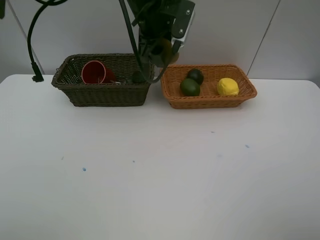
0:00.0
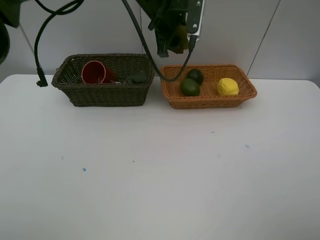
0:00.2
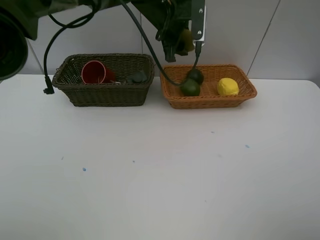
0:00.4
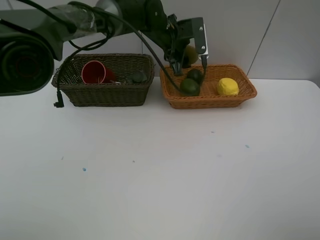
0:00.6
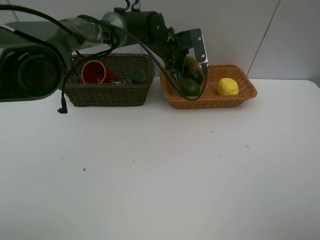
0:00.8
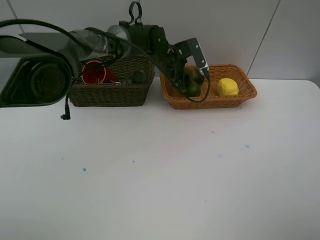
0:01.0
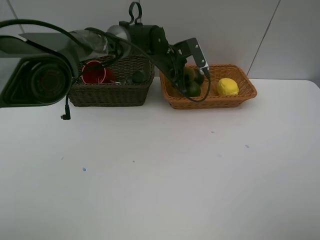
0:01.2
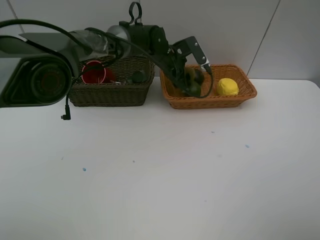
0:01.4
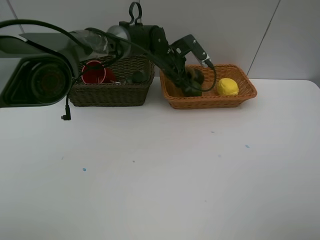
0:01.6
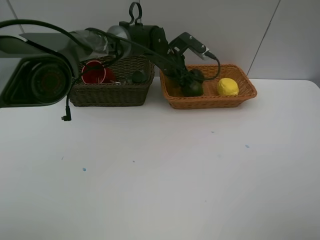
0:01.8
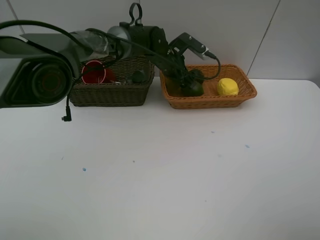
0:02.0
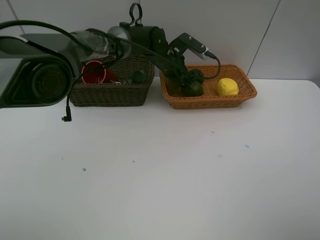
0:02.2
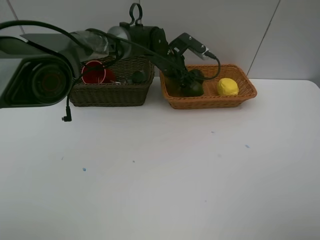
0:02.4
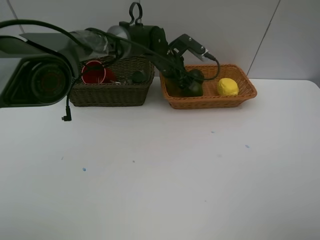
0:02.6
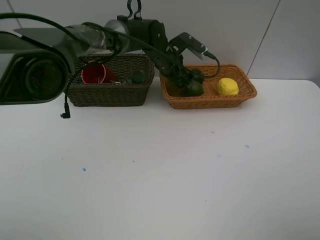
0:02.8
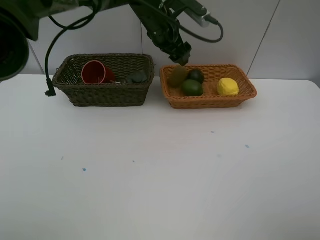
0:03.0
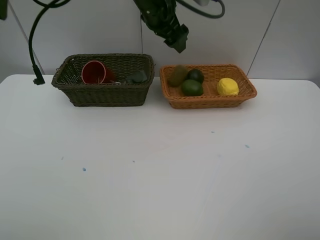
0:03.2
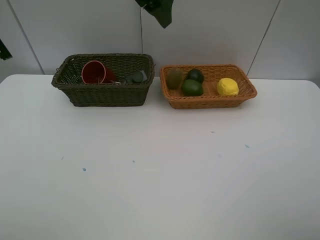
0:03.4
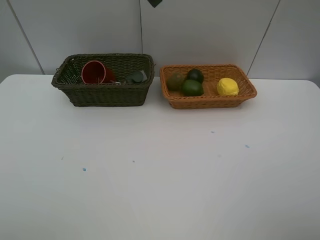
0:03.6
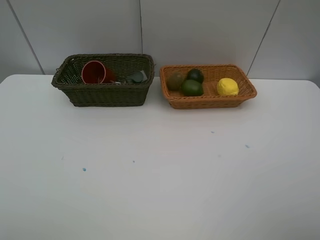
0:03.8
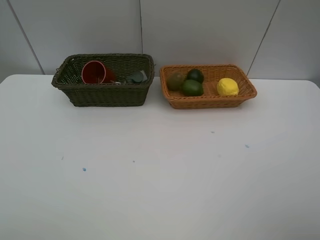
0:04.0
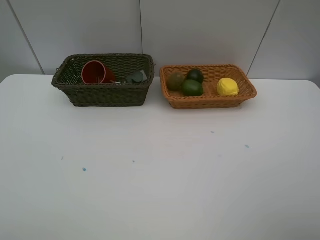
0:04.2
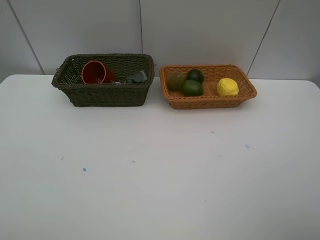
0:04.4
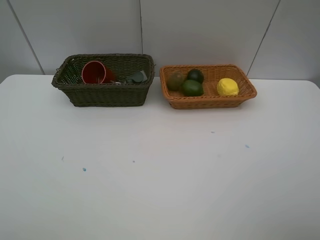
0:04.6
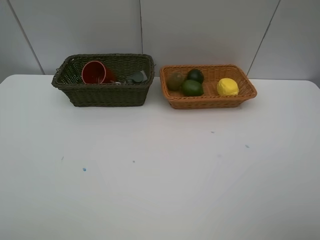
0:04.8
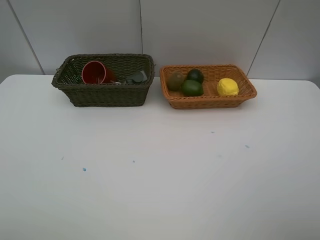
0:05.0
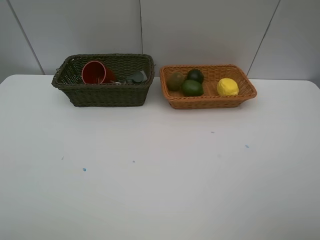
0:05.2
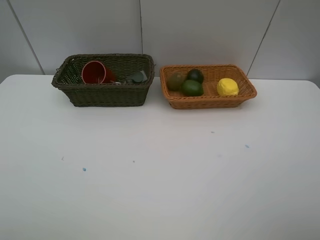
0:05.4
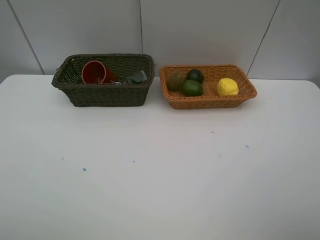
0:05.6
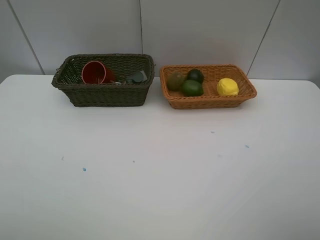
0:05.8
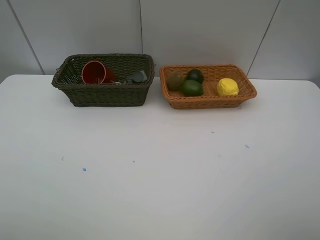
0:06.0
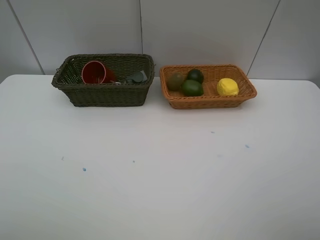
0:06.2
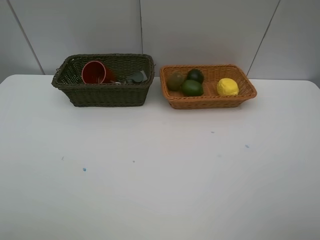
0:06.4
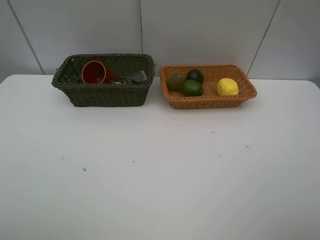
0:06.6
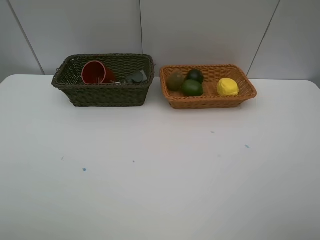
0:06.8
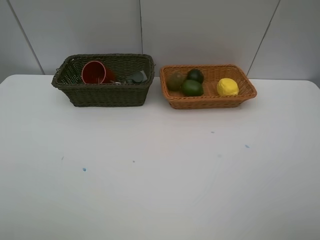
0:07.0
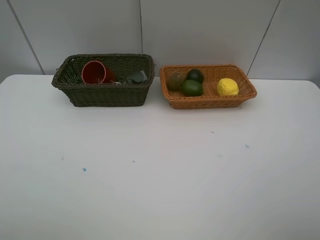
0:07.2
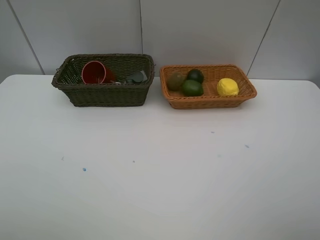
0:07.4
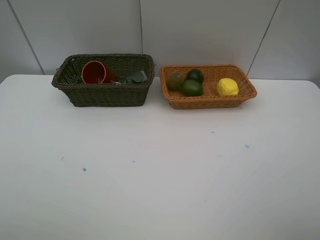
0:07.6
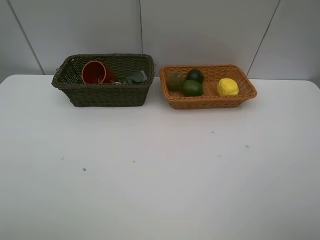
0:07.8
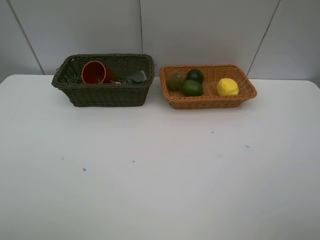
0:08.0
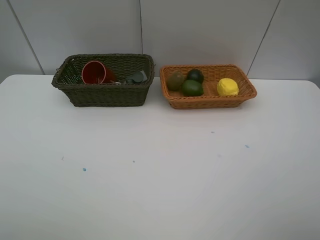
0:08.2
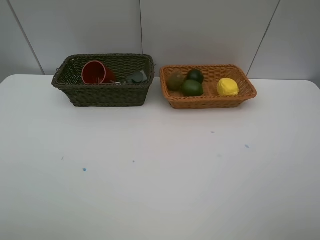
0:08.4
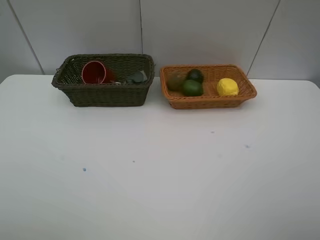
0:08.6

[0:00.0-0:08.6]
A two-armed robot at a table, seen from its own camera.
Task of the whole recording: Place multiple objects separately in different baskets.
Step, 0:00.0 to 0:03.0: Place the kiwi in the light basket with left gripper.
0:00.0 to 0:01.4: The left gripper goes roughly 15 cm downward.
0:01.4 to 0:02.8: The grippers make only small movements.
0:02.8 to 0:04.4: The left gripper goes about 50 cm upward, backward and to the left.
0:07.2 to 0:08.6: Neither gripper changes place.

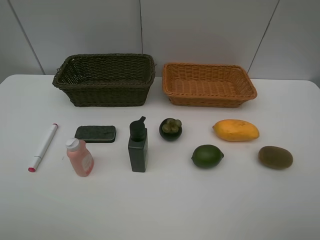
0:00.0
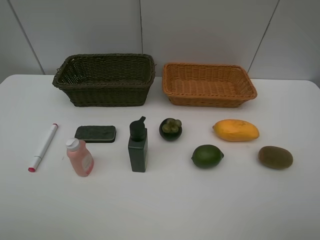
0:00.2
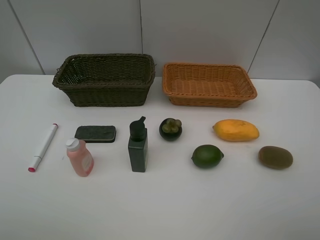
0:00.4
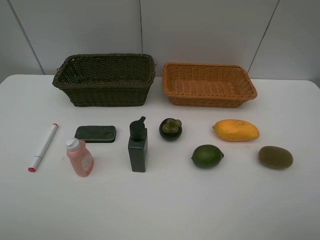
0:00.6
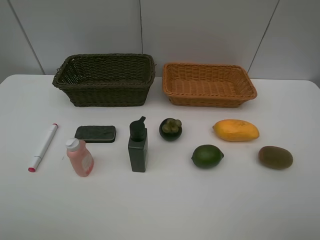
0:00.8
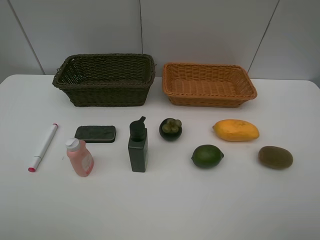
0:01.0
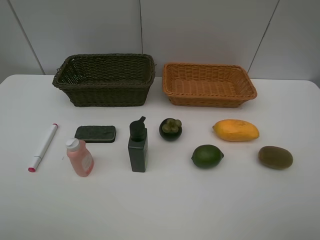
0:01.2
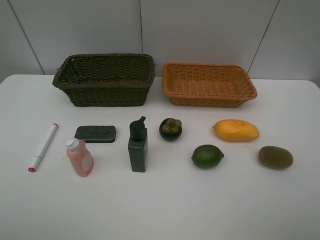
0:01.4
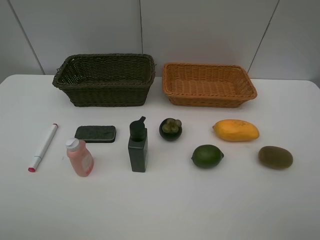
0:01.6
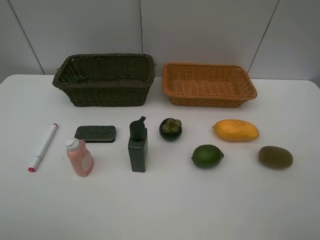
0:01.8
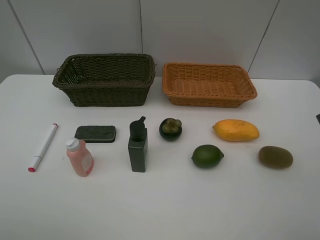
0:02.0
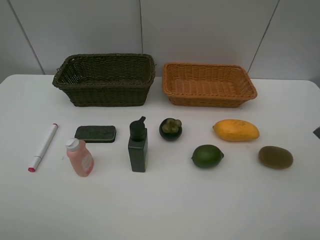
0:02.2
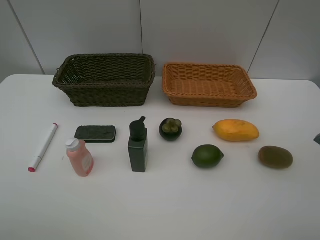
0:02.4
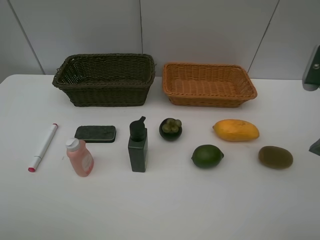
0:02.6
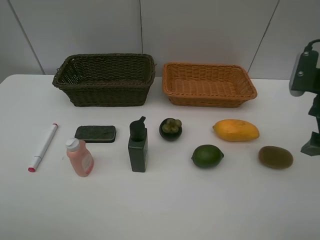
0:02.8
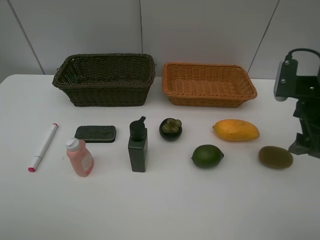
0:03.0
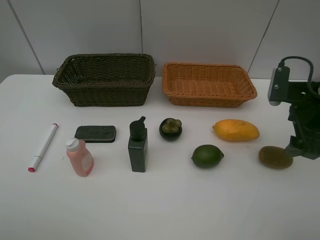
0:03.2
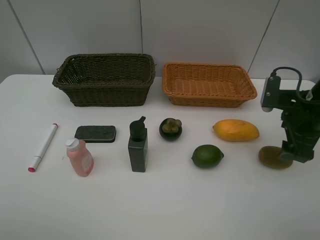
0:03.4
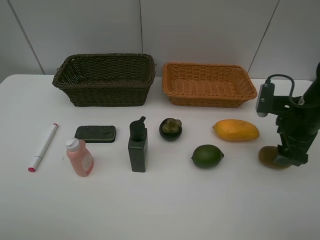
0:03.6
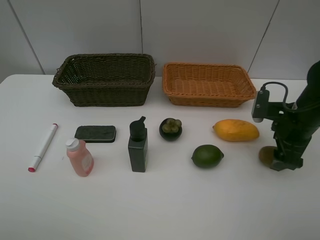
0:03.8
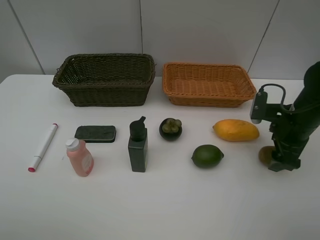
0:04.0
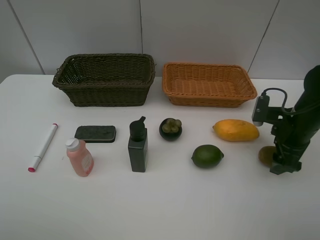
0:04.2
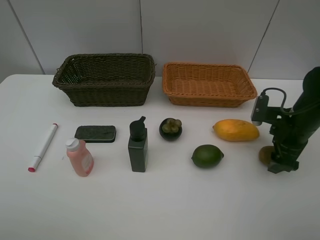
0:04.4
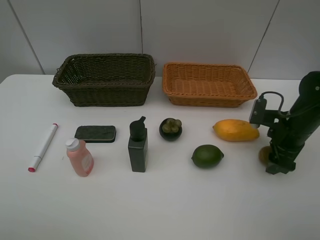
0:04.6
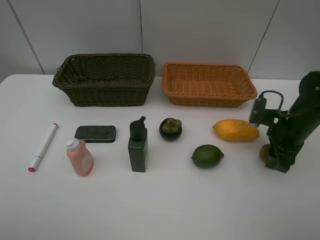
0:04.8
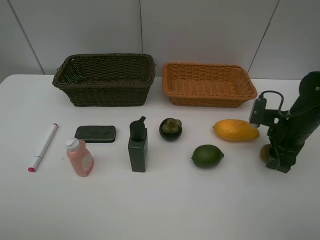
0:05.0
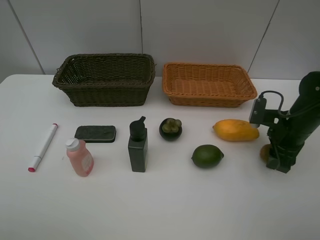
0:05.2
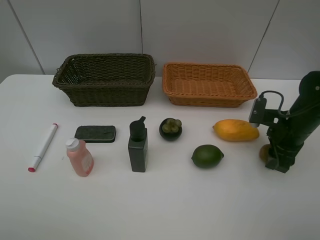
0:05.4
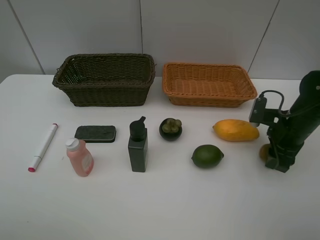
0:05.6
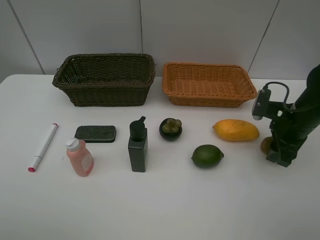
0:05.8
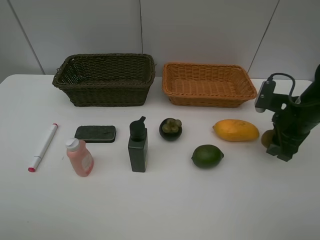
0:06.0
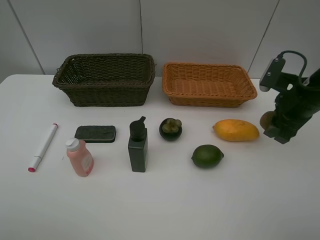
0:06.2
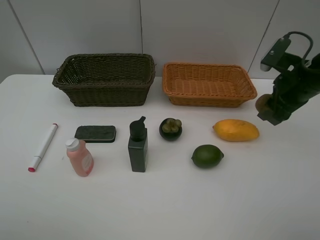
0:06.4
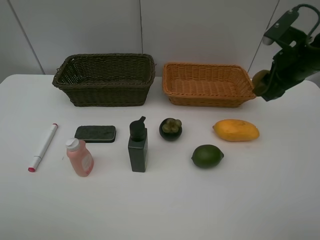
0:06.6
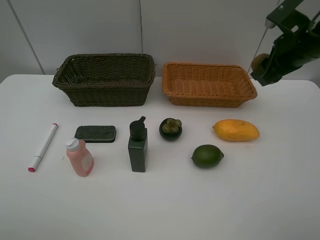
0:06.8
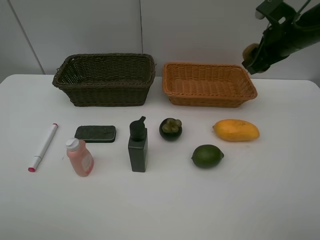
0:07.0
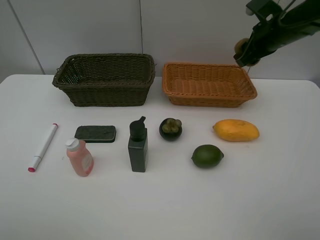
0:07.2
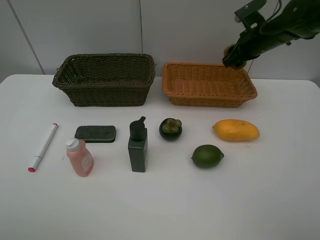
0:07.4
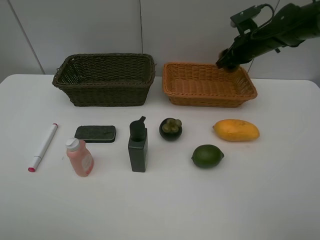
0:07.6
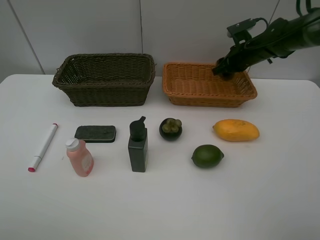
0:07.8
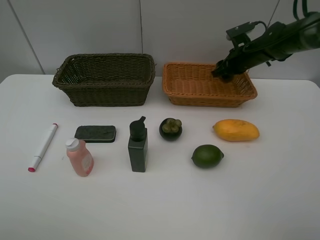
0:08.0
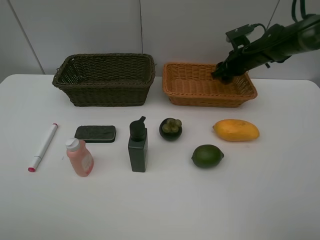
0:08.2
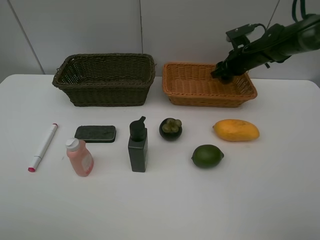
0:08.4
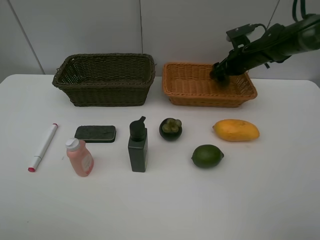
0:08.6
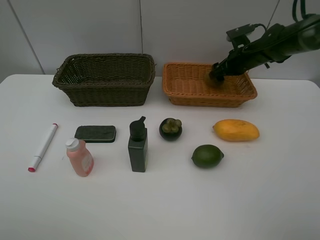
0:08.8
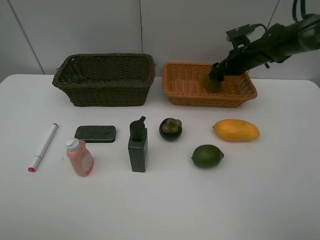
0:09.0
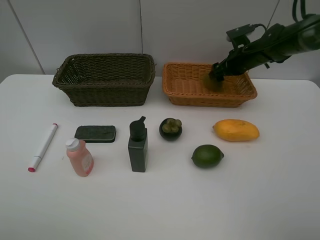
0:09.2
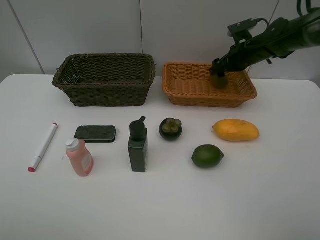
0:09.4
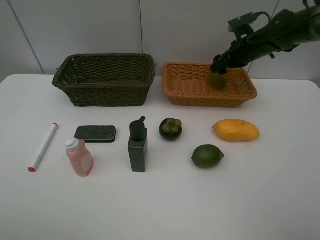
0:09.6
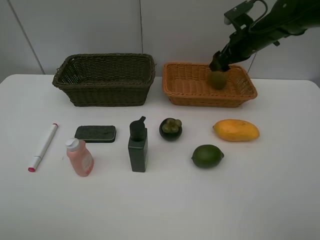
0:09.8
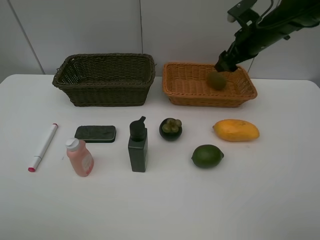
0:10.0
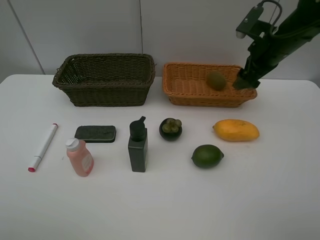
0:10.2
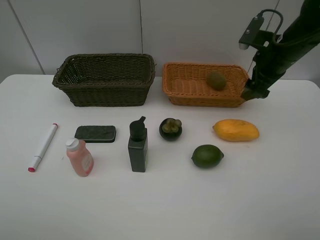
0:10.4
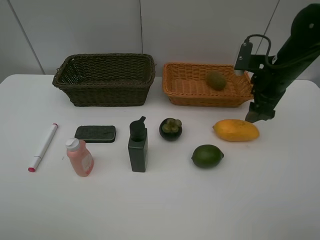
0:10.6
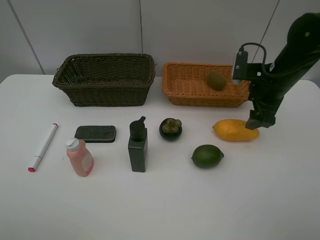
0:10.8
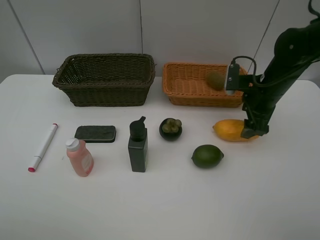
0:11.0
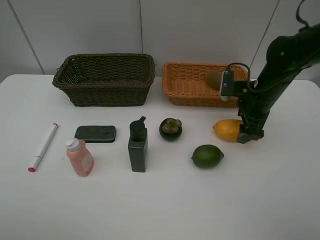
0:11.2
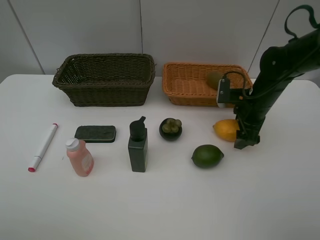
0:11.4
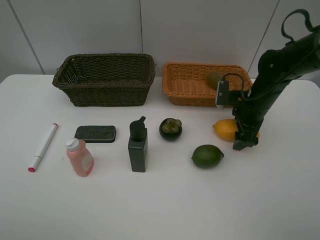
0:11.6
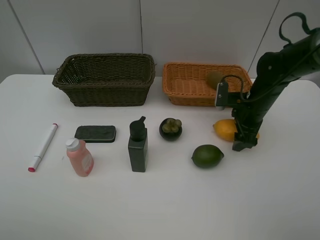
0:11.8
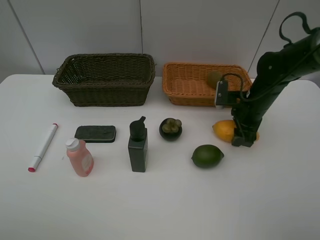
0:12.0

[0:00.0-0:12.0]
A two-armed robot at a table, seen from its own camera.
Task of the whole recording: Place multiple objects separately in different baskets.
Step, 0:00.0 to 0:06.0: Pick up kiwi with right gripper.
Step, 0:06.2 to 0:09.4: Place the kiwi in the light basket with right gripper.
0:01.6 to 0:03.0: The right gripper goes about 20 cm forward and downward.
0:03.0 to 0:04.4: The right gripper travels downward by about 10 cm.
0:04.4 to 0:06.0: The right gripper closes.
0:06.0 to 0:07.6: The right gripper heads forward, covering roughly 20 cm.
0:07.6 to 0:09.0: The right gripper opens up.
0:09.0 to 0:10.4: The right gripper is displaced backward and upward by approximately 15 cm.
0:10.4 to 0:12.0: The right gripper goes approximately 10 cm downward, and closes up.

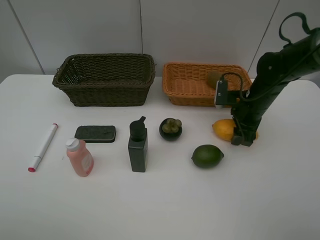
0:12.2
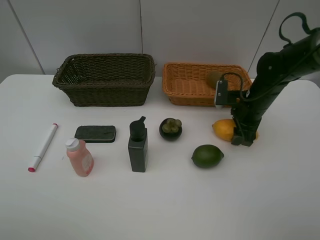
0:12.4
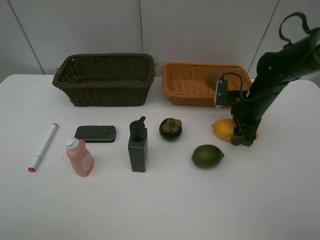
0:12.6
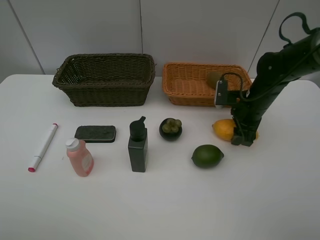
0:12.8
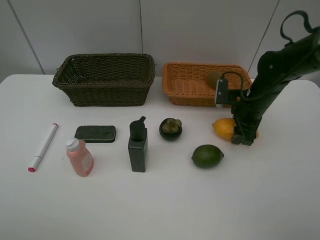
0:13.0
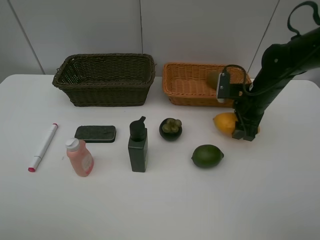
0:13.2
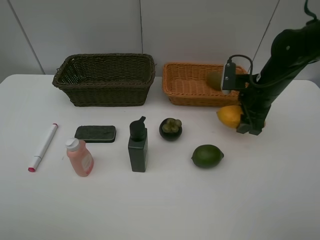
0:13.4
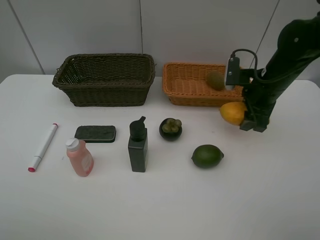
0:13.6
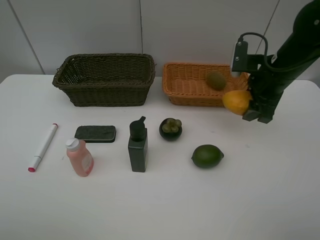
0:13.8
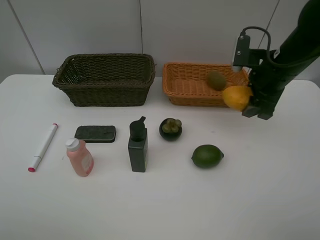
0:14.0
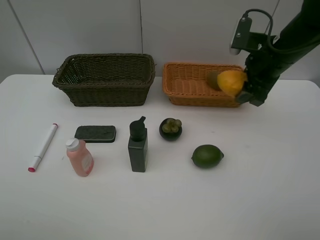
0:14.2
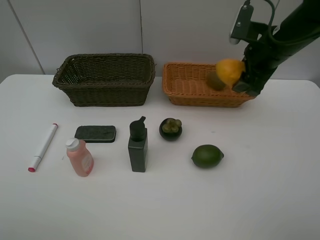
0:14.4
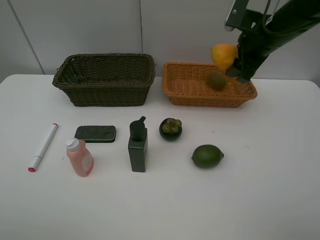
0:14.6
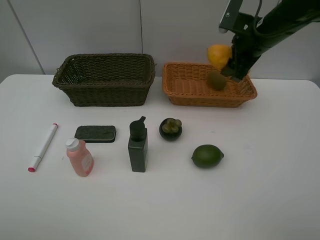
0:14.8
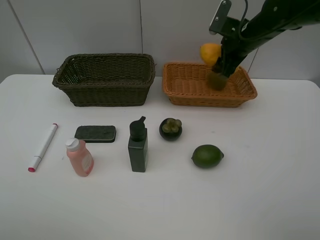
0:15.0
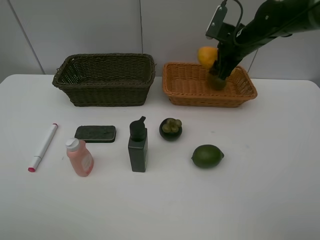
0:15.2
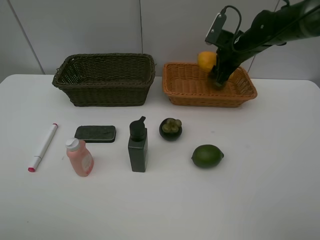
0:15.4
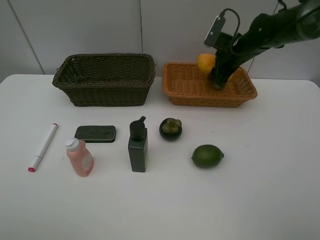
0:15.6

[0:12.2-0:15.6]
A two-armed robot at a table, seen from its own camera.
Task of the whole recording: Place multiple objects separately in different baskets.
0:12.2 to 0:13.8: The right gripper heads upward, covering about 10 cm.
0:13.8 to 0:15.6: The right gripper heads forward, covering approximately 15 cm.
